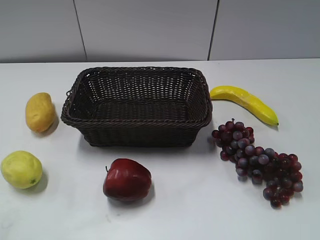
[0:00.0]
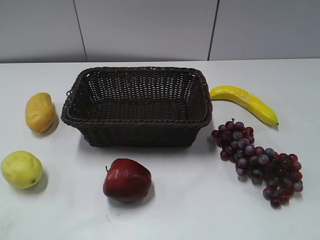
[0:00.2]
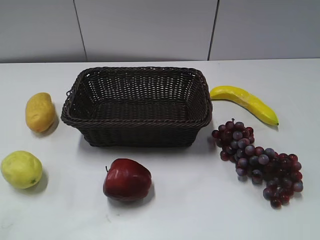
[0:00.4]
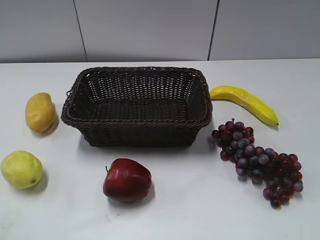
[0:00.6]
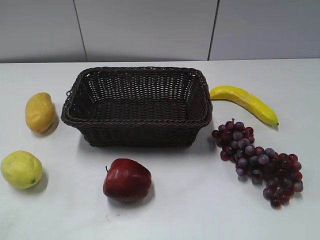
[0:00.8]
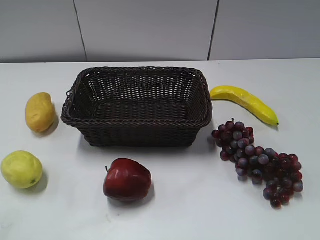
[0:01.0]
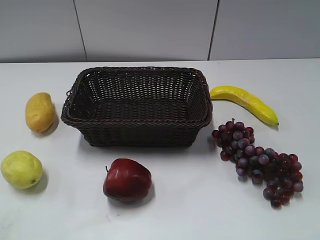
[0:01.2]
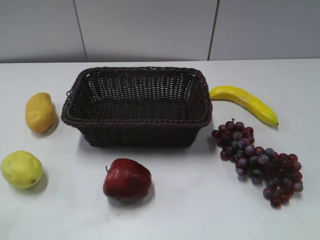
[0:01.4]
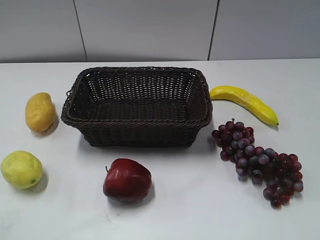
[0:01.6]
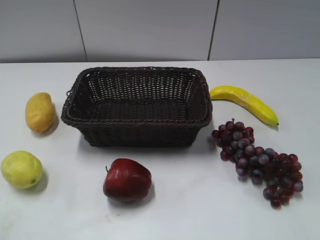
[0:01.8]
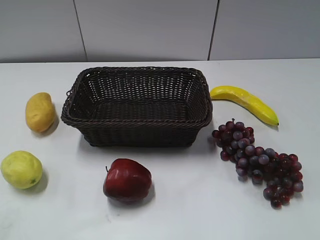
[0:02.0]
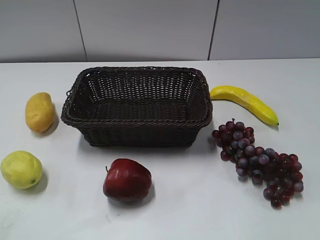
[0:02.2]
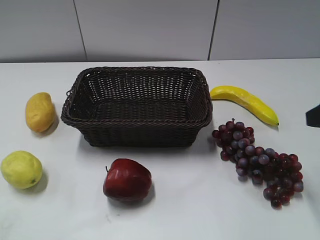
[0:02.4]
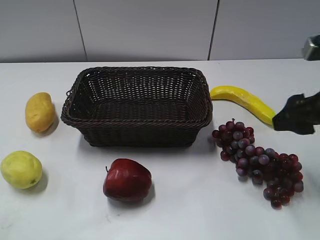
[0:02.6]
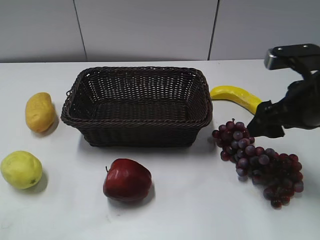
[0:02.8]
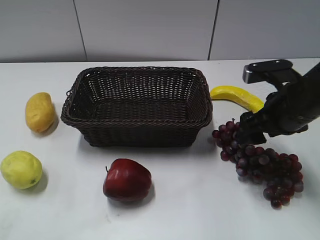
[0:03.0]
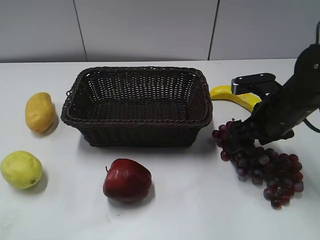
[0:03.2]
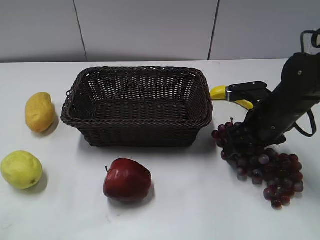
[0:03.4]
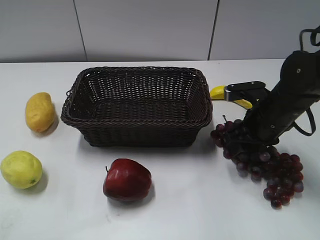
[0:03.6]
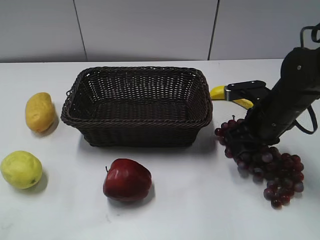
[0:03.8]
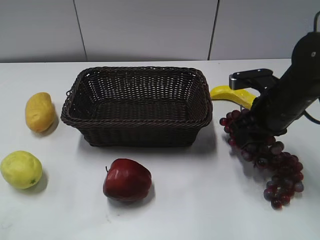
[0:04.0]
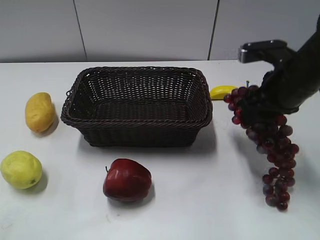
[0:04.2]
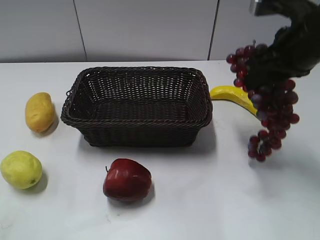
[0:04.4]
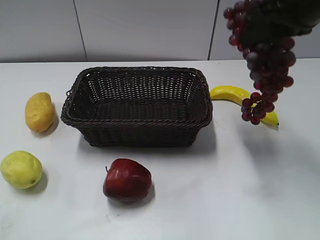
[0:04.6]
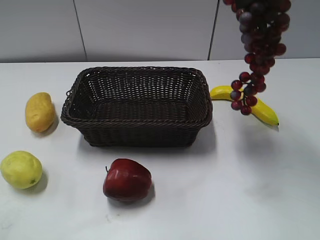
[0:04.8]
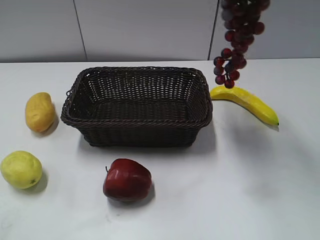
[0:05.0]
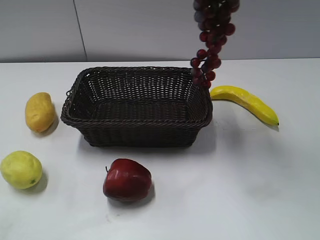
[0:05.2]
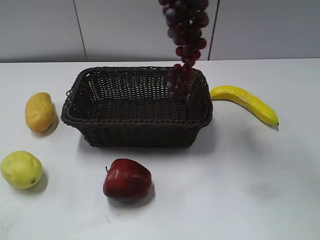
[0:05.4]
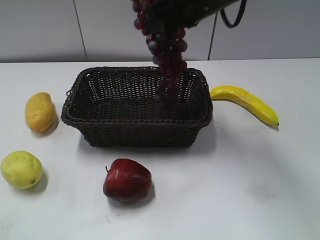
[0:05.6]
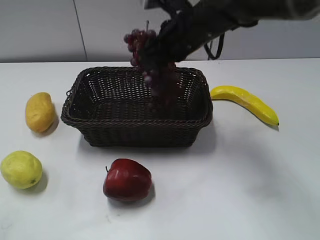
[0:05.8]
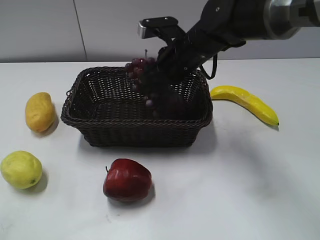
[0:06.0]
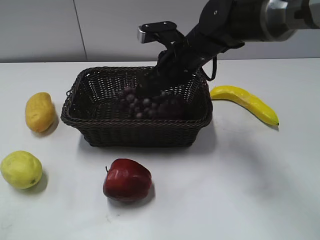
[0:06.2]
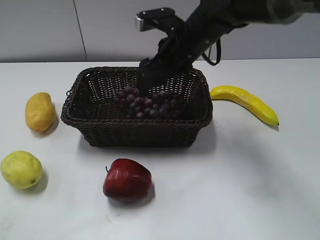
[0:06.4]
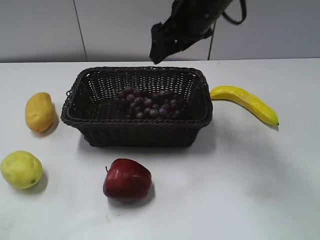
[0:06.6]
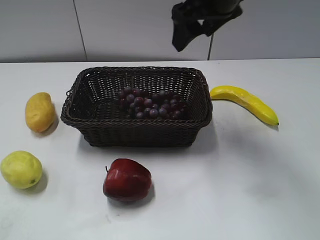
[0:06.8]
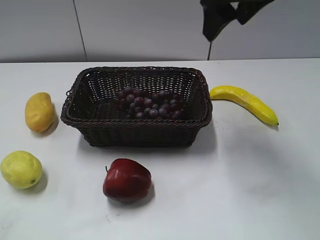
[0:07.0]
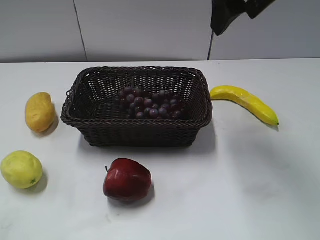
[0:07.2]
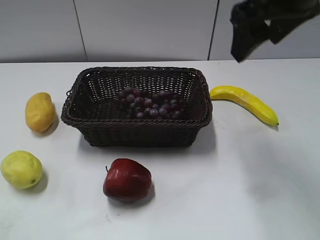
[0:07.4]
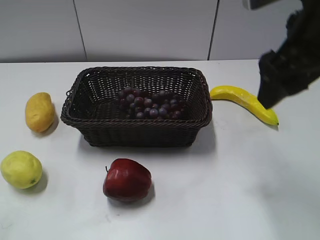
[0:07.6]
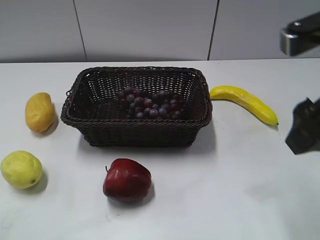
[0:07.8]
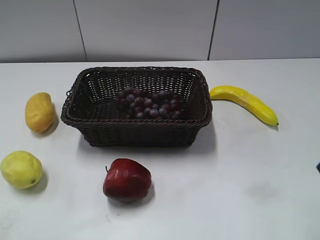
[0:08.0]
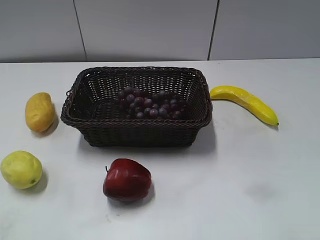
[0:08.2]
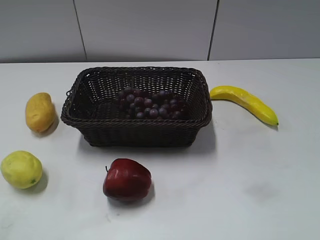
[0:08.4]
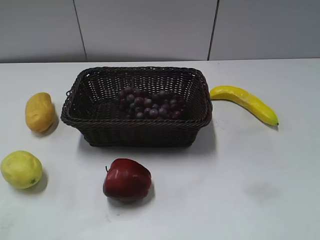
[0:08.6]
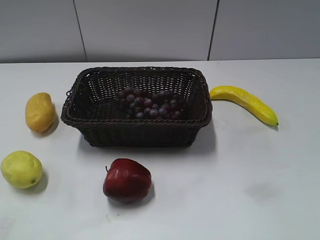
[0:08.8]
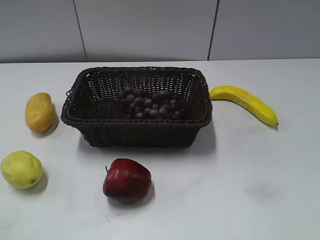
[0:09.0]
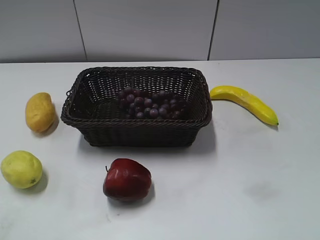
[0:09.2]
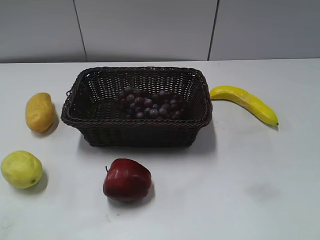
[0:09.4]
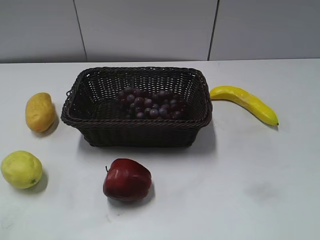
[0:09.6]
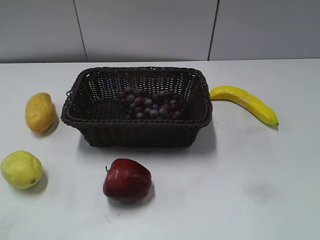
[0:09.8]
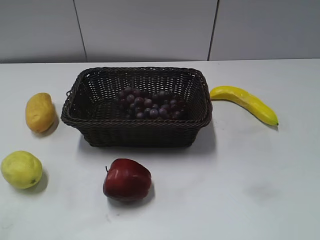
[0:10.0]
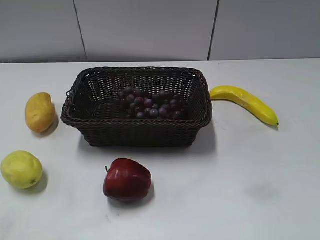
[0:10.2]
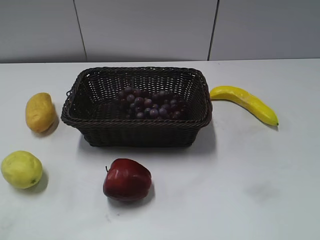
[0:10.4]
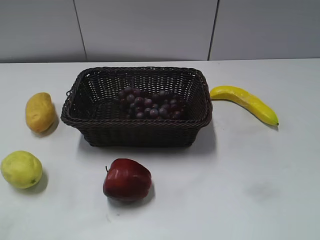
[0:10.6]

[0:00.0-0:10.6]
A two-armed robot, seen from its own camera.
Step, 0:02.4 to 0:04.2: Grasp the grape with right gripper.
Step, 0:04.4 to 0:06.6: Place the grape in the basket with right gripper.
0:01.6 to 0:03.0: The right gripper moves forward and downward, about 30 cm.
0:03.0 to 0:04.6: The right gripper travels upward by about 15 cm, and closes.
0:04.6 to 0:06.0: The right gripper is displaced to the left, downward and forward by some 20 cm.
0:06.0 to 0:07.6: The right gripper is displaced backward, upward and to the right by approximately 25 cm, and opens up.
0:07.6 to 0:09.0: The right gripper moves backward and to the right, roughly 30 cm.
